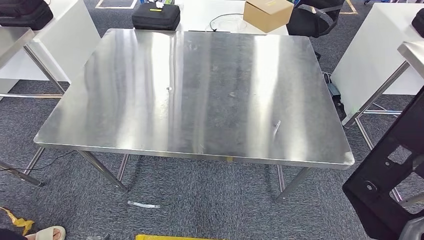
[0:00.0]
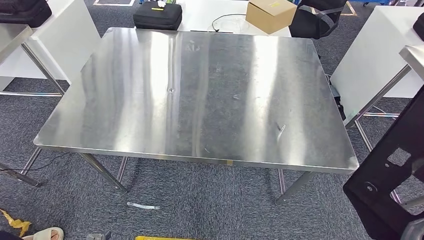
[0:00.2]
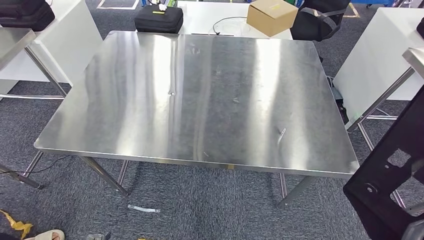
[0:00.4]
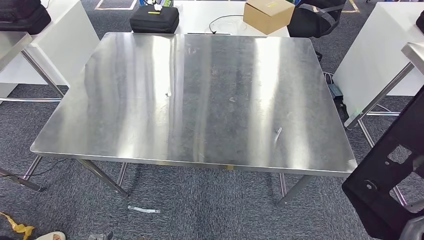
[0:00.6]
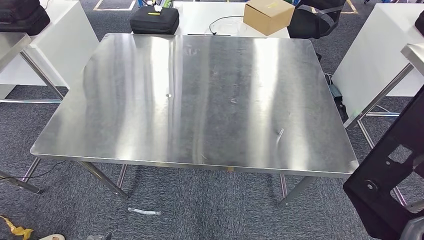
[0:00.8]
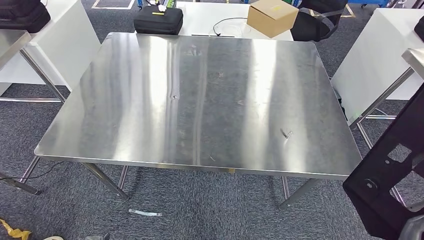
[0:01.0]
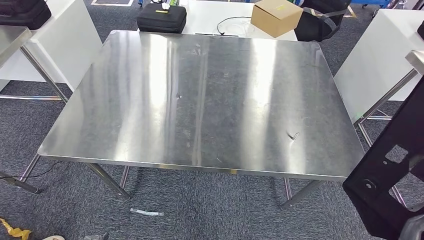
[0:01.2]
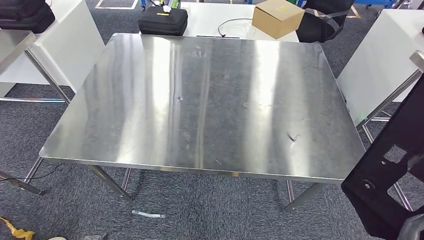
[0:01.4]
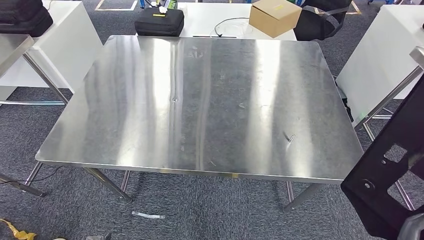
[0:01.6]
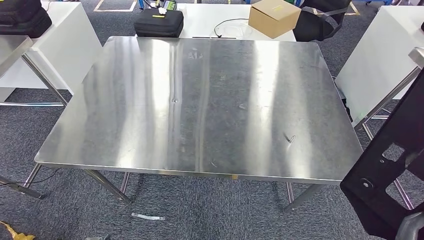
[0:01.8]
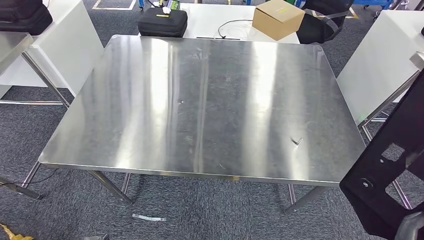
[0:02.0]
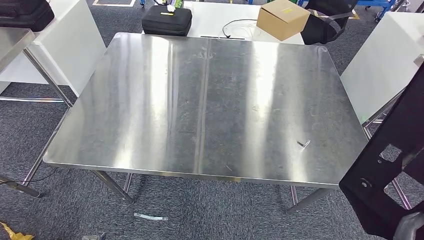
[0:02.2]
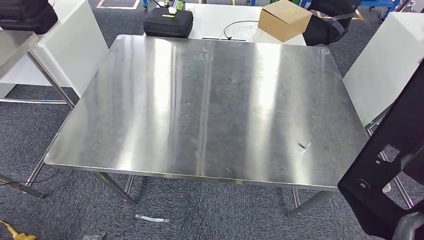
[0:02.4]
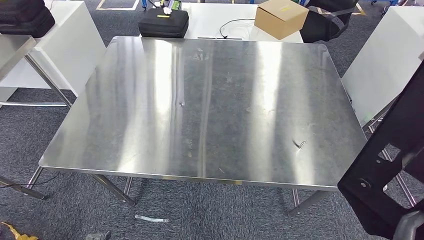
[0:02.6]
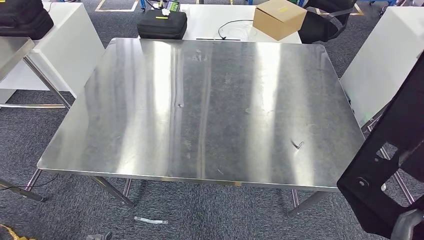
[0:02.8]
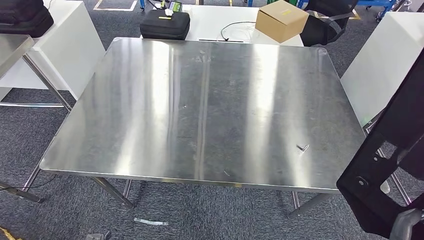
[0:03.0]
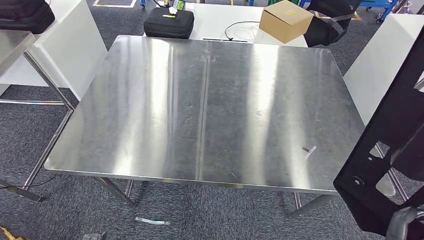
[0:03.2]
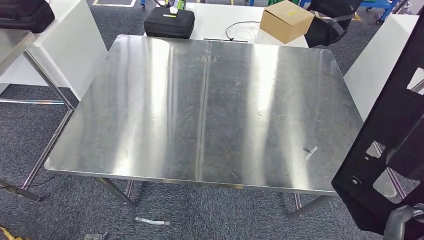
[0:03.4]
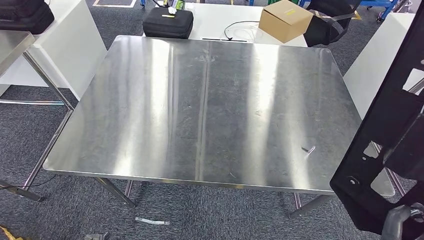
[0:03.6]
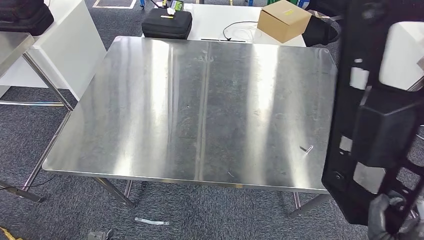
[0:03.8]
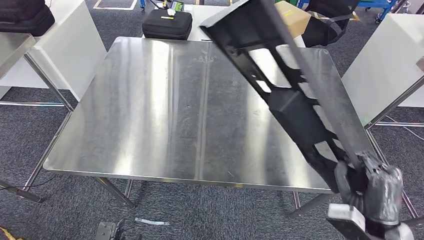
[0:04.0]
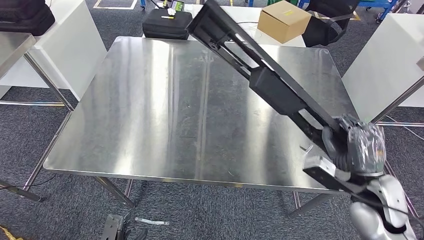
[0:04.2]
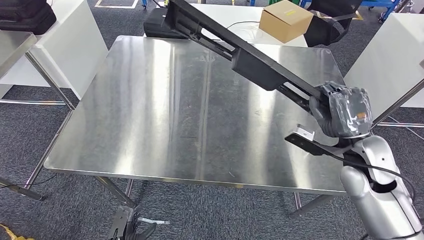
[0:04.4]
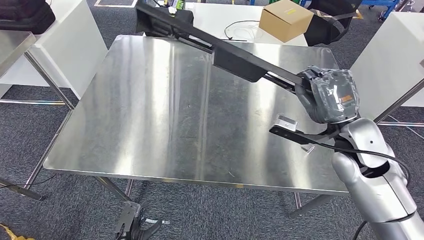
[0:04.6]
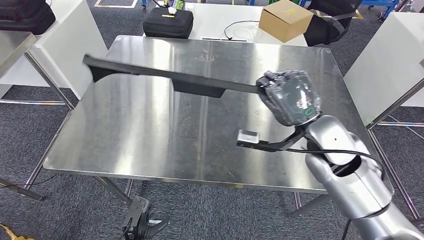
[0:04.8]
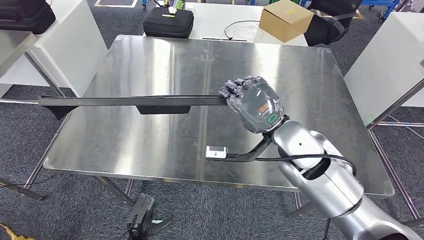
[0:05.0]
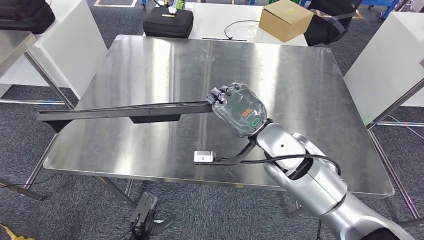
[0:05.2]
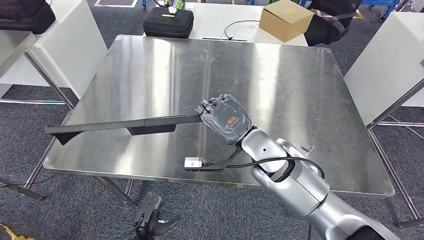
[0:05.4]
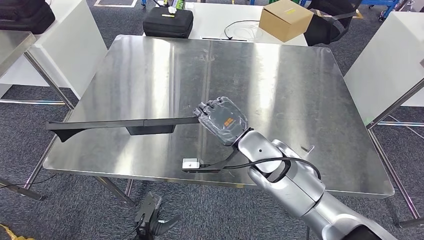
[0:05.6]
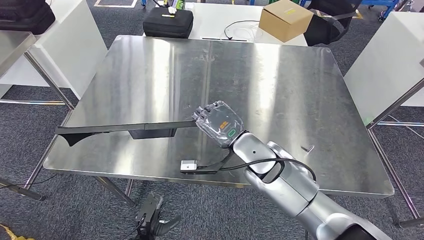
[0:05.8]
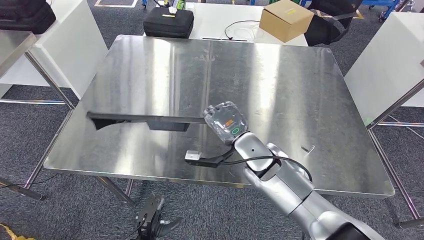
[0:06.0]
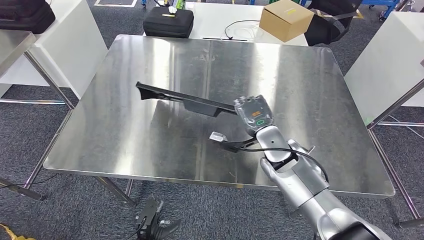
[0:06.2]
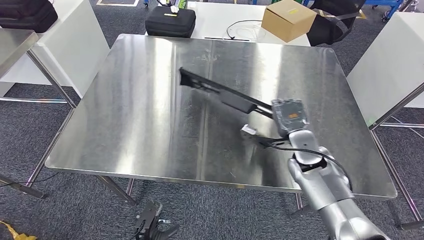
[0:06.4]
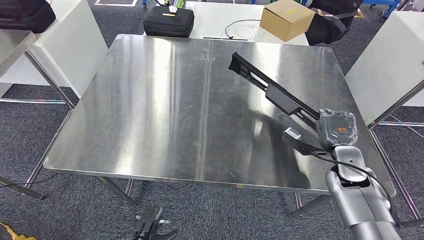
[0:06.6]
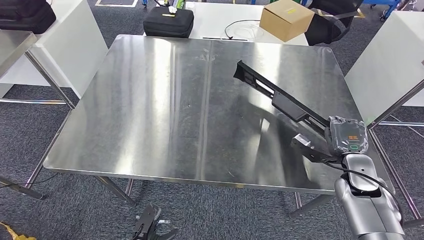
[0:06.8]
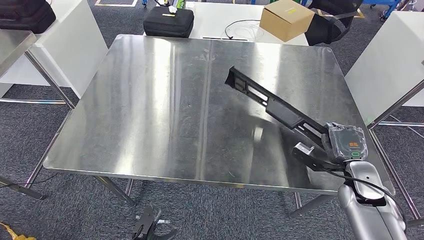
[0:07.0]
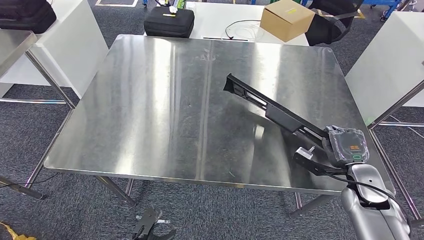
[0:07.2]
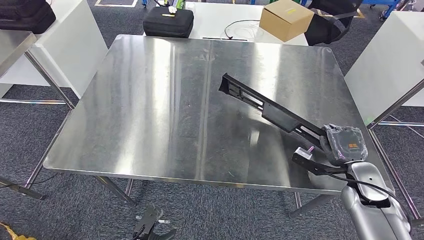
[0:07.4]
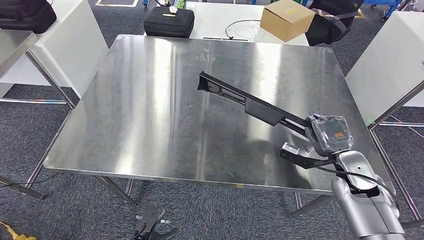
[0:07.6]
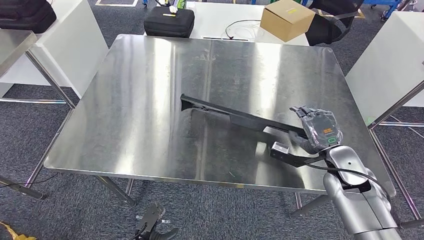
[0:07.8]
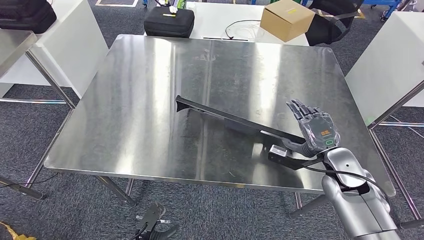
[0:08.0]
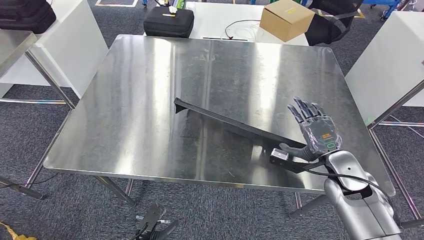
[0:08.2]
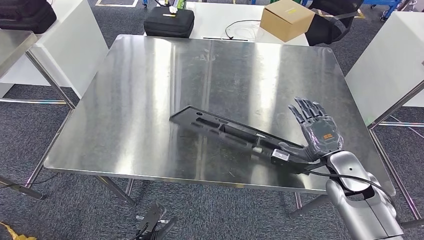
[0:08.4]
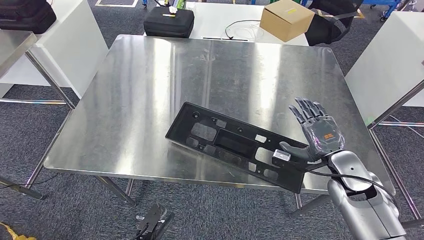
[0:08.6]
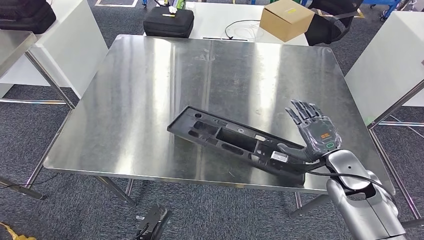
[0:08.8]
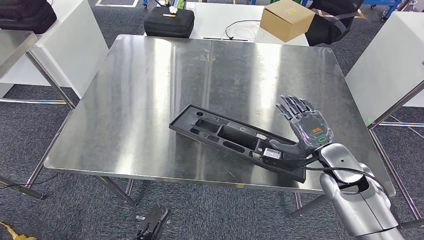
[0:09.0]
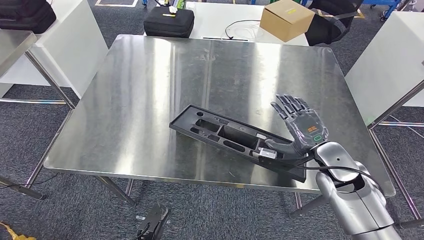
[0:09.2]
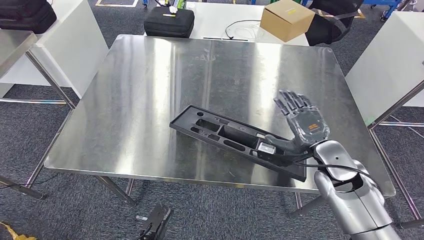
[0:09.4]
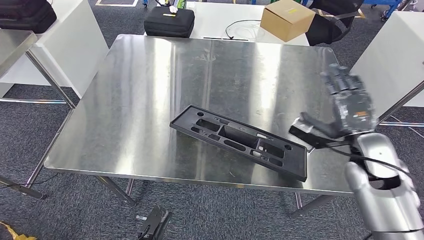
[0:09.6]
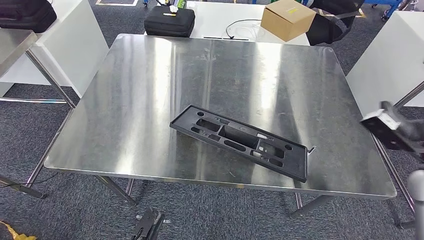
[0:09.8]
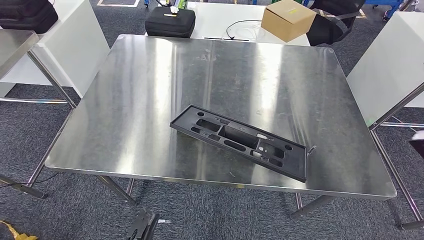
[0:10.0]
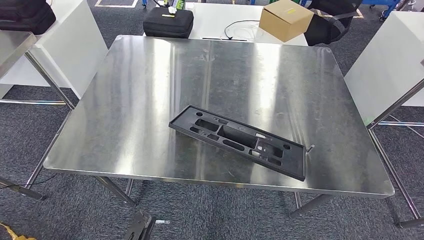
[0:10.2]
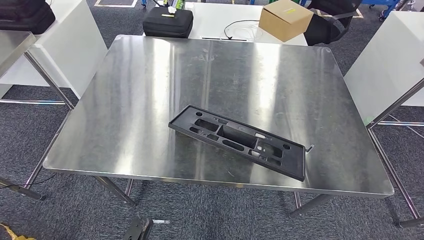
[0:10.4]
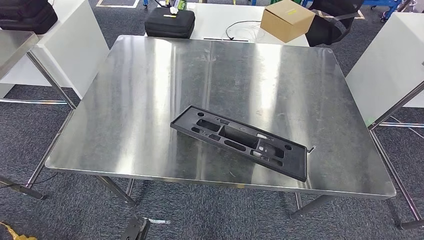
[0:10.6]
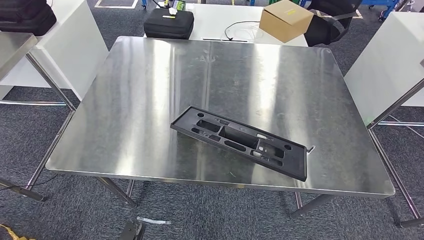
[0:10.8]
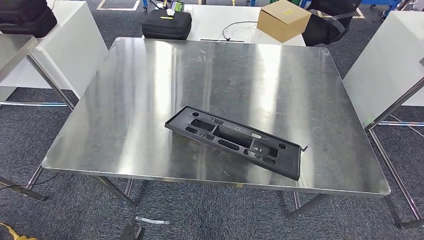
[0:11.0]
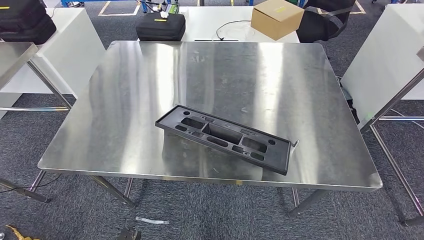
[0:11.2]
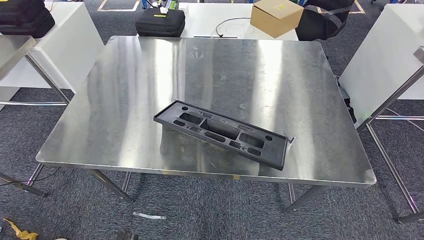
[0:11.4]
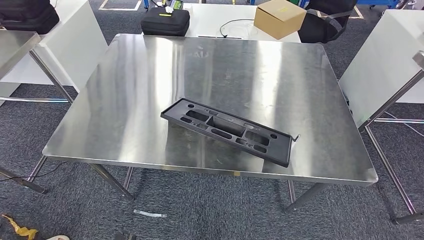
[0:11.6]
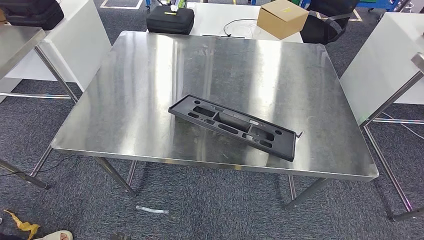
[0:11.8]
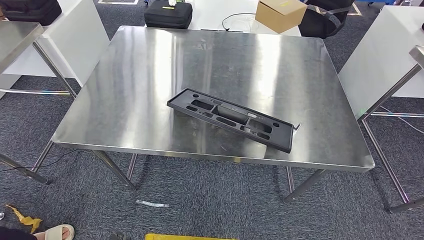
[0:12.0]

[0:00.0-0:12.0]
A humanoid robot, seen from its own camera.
Step, 0:00.0 to 0:09.4: Insert the large material into the corresponding hole on the workbench.
0:01.6 to 0:03.0: Both hands stay about where they are.
0:06.0 to 0:07.6: The right hand is displaced to the right by roughly 25 cm.
0:07.6 to 0:09.0: The right hand shifts by about 5 cm.
0:09.0 to 0:10.4: The left hand changes place by approximately 5 cm, while the right hand goes roughly 25 cm to the right and backward.

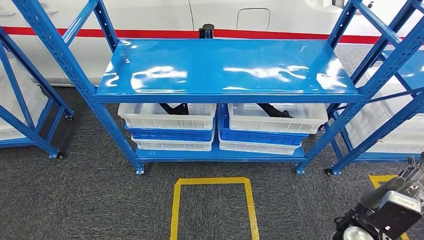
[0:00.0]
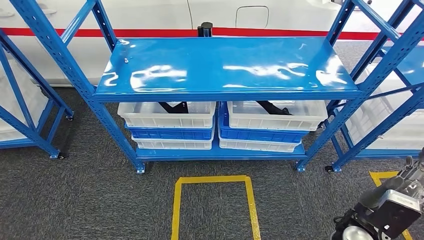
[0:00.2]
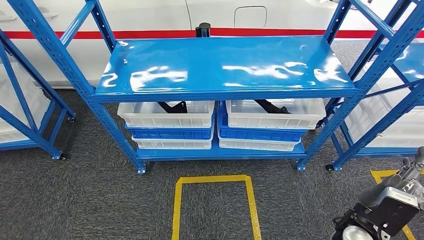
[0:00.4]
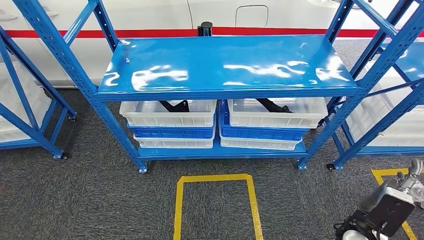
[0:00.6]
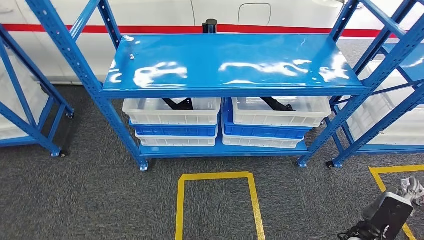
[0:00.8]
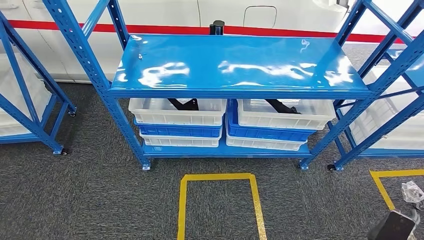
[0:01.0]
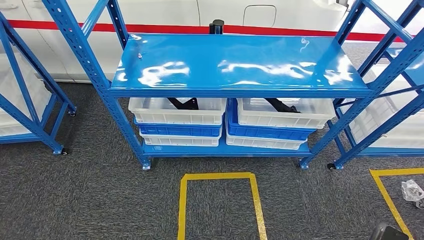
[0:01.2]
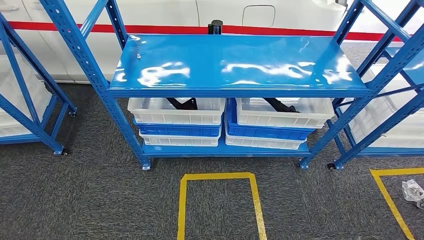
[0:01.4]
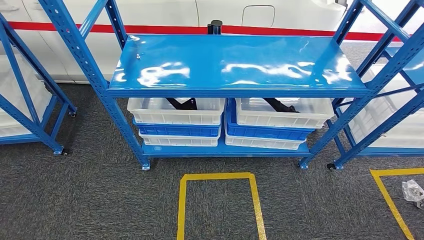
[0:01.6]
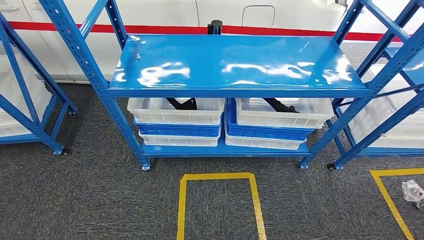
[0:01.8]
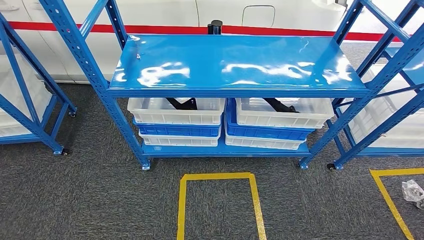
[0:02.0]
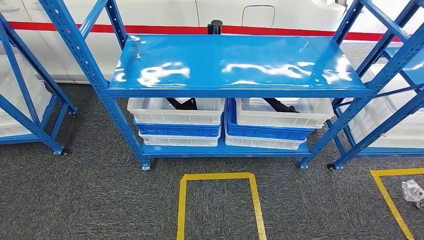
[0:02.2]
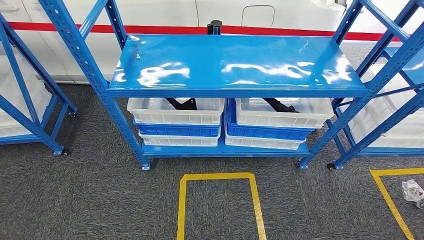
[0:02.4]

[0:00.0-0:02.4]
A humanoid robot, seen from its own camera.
Step, 0:00.0 to 0:02.4: Move to the initial position of the shelf.
0:01.2 to 0:02.4: The right hand travels to the left, downward and backward by some 15 cm.

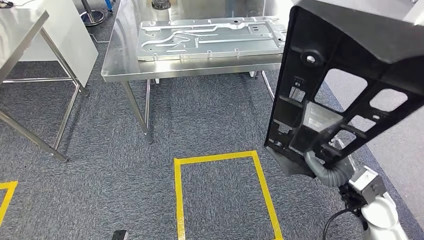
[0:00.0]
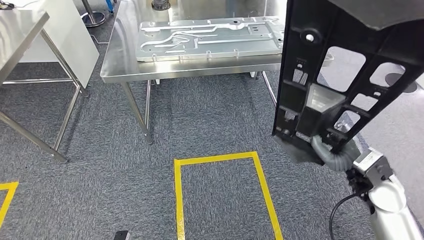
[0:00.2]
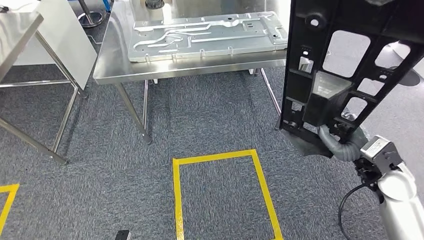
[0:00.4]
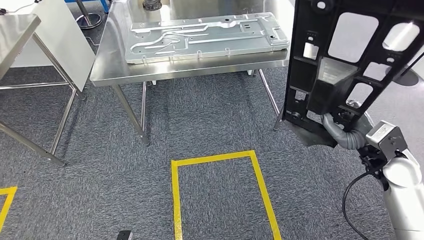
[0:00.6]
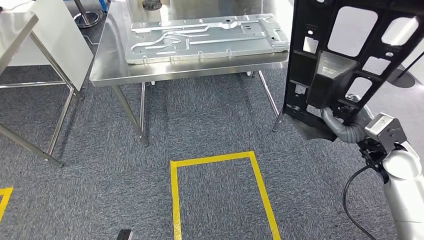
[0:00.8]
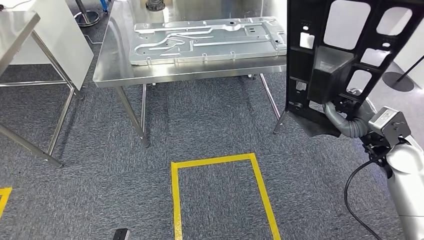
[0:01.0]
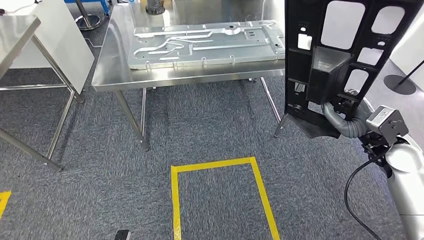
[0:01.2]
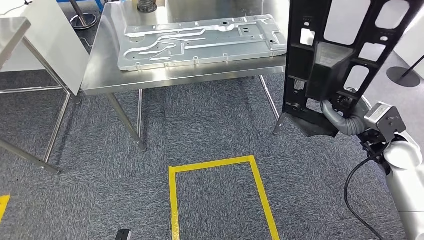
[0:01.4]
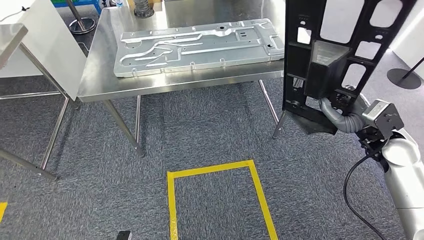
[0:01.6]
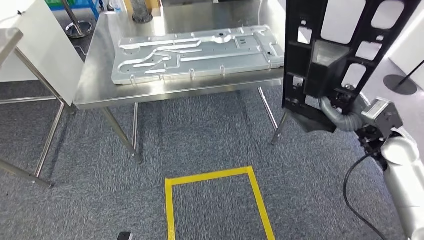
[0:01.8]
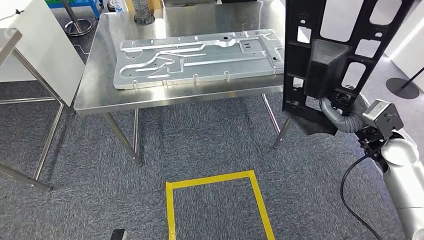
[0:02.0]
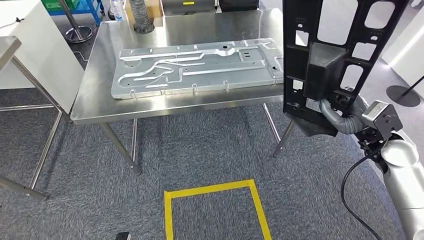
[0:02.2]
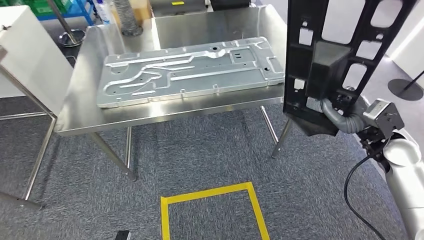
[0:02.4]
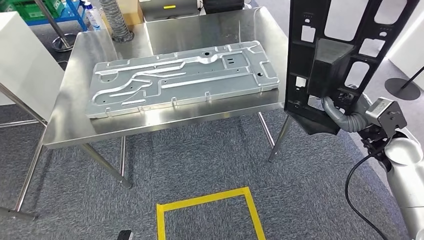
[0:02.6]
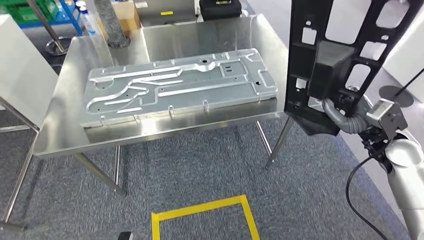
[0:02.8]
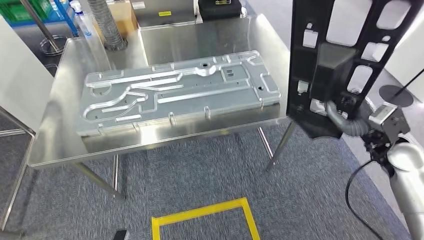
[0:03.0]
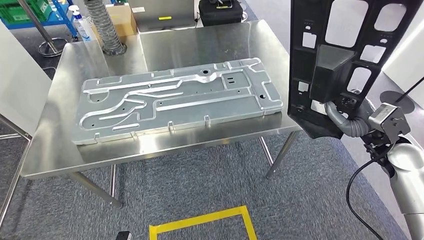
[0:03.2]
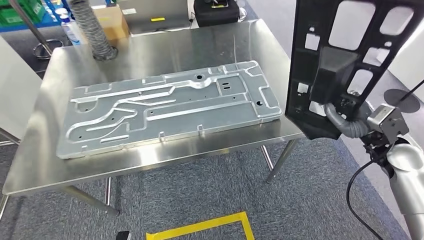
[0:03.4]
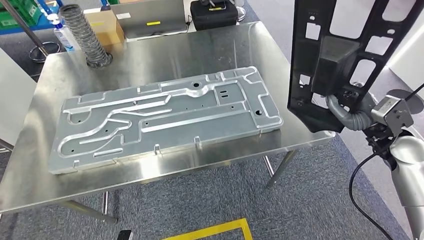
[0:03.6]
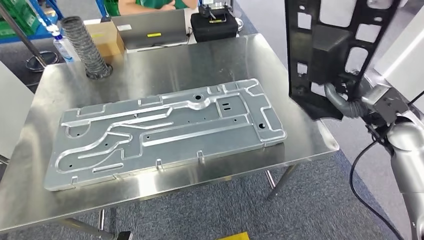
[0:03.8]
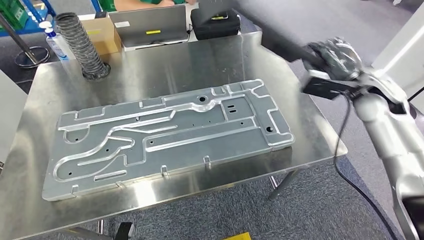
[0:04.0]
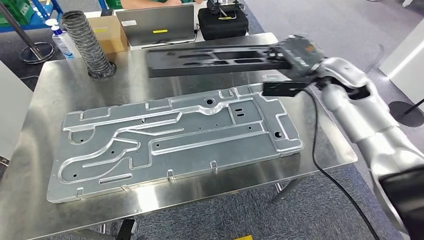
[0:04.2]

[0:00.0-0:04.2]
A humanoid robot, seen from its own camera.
Step, 0:00.0 to 0:03.4: Move the large material to the front of the workbench.
